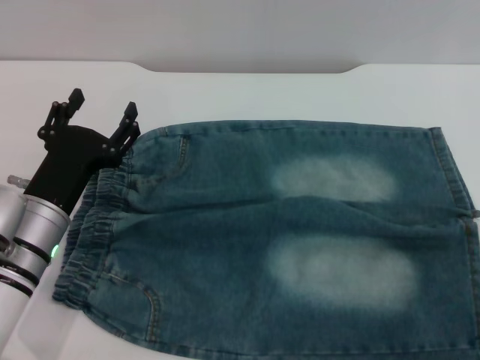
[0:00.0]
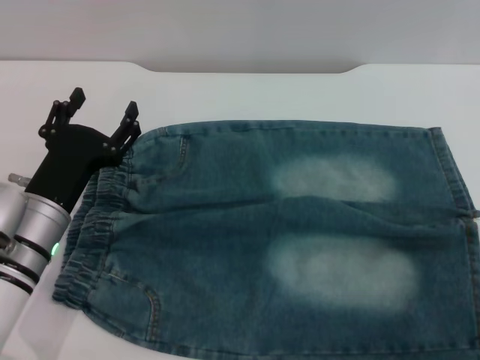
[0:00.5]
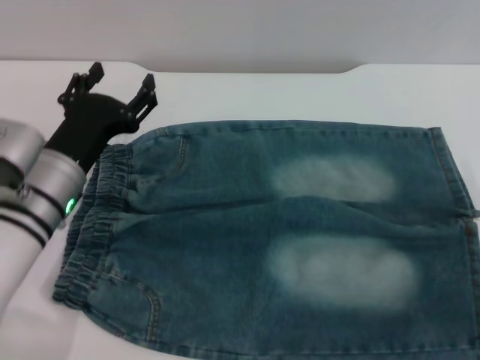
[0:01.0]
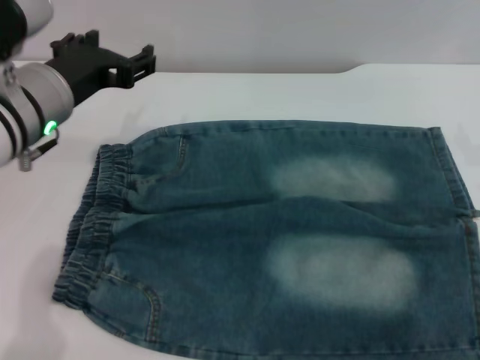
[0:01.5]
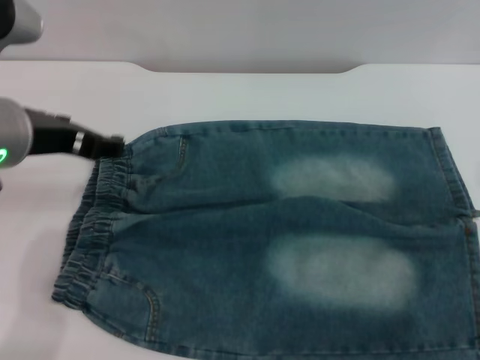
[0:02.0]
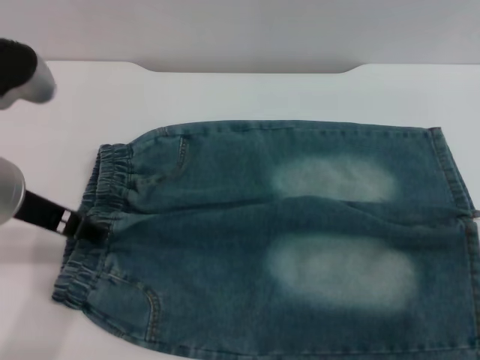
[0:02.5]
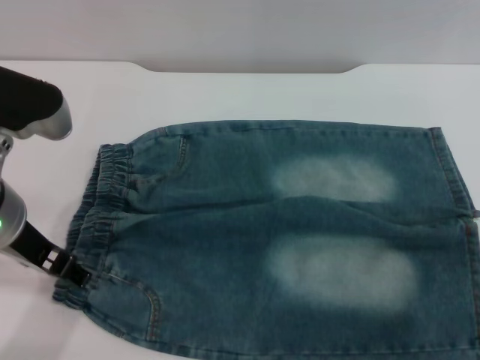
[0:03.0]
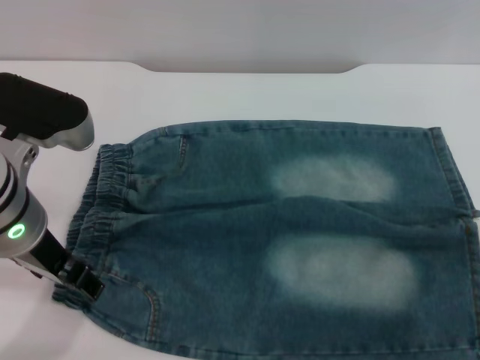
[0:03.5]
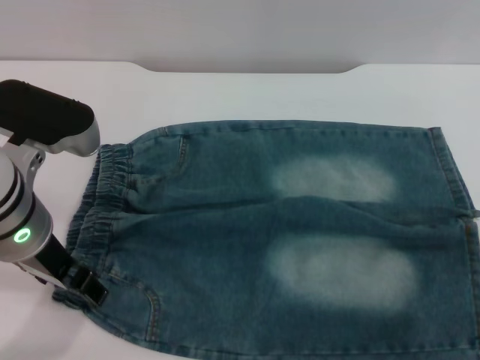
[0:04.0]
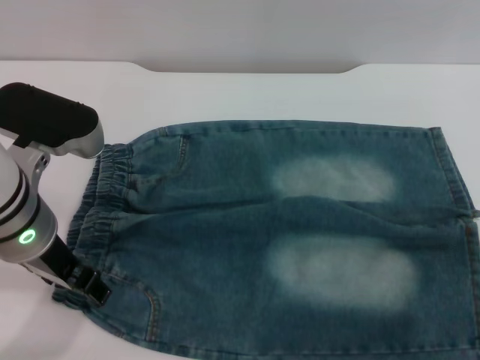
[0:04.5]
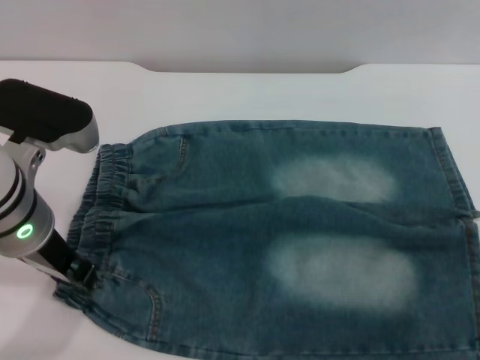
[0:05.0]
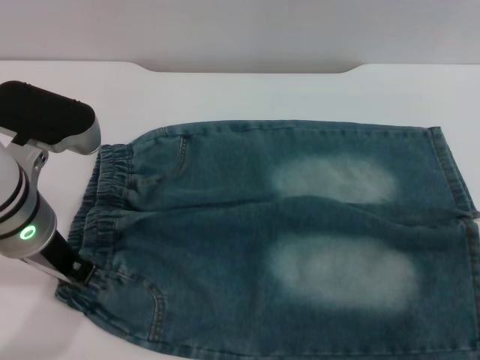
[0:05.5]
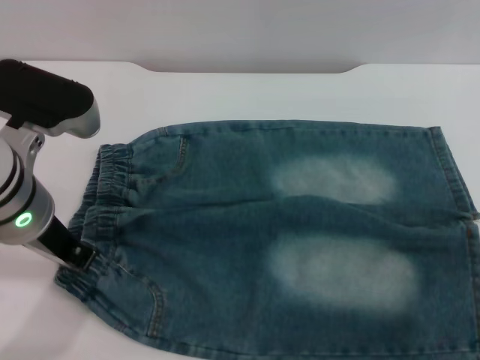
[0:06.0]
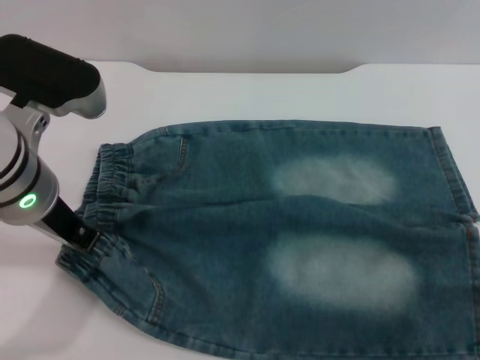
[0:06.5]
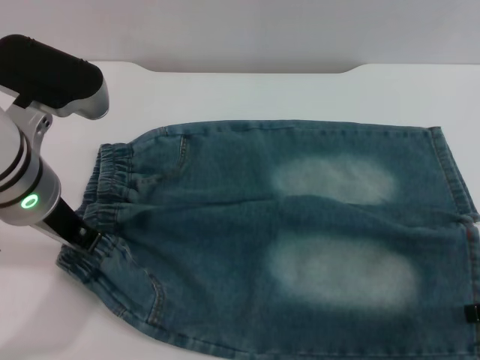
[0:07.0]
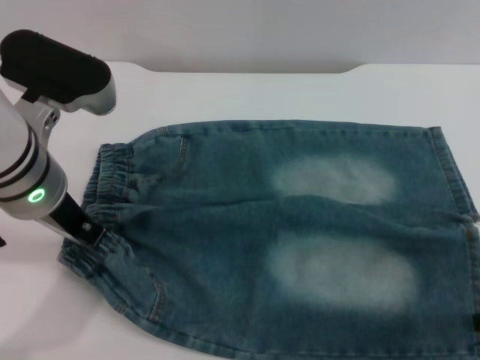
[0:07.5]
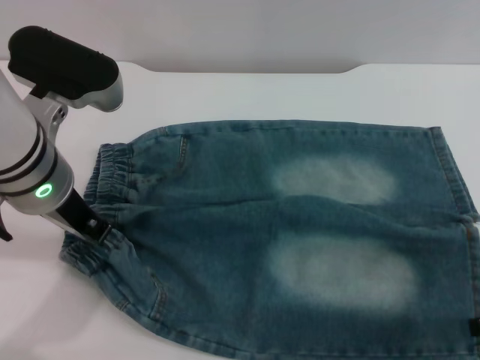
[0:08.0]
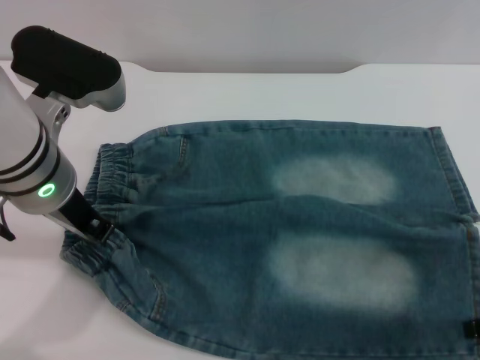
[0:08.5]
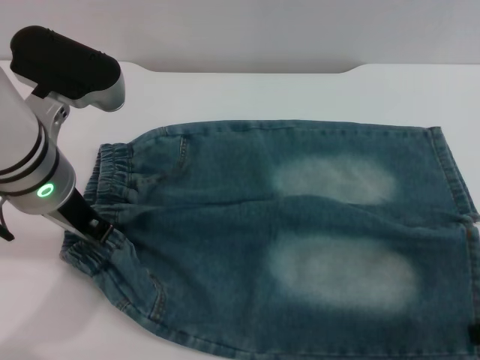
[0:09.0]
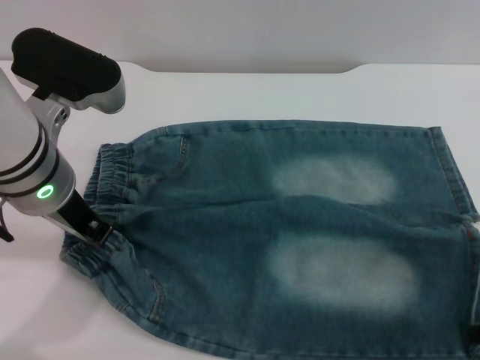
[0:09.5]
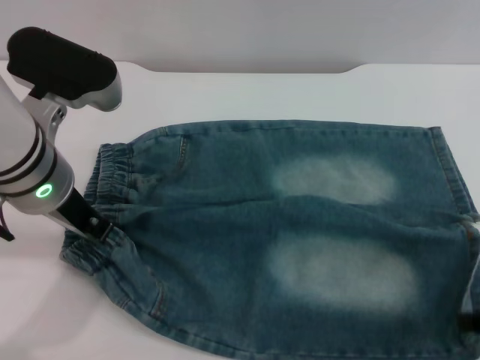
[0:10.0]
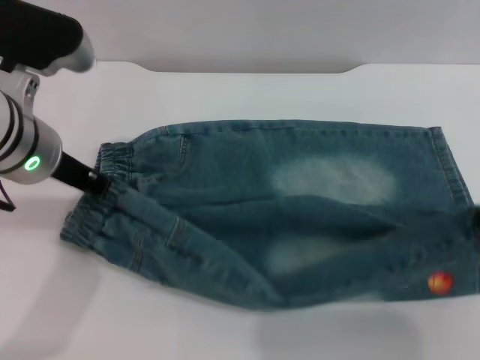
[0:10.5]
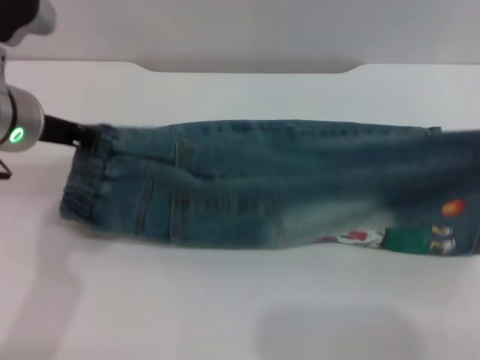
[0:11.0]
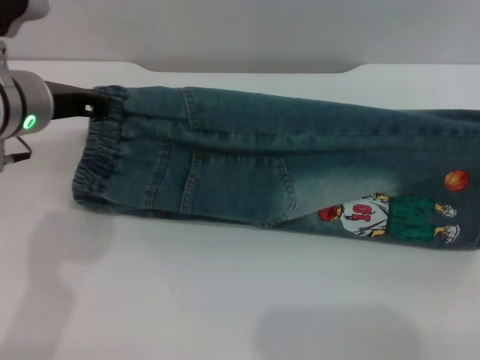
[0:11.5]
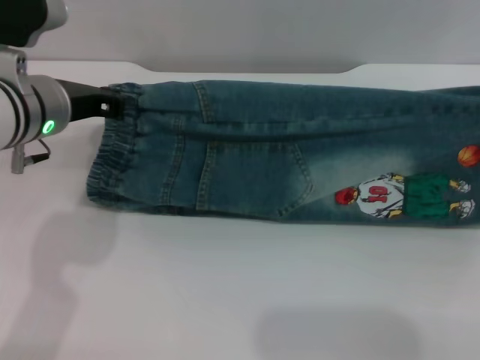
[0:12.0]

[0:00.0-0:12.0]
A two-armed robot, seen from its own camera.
0:00.0 to 0:02.0: The left gripper heads upward, covering approximately 15 cm.
0:04.0 to 0:06.0: The left gripper closes up.
0:08.0 to 0:10.0: The right gripper closes up.
0:10.0 to 0:12.0: The left gripper changes place by some 5 cm. The right gripper heads forward, covering some 10 cm.

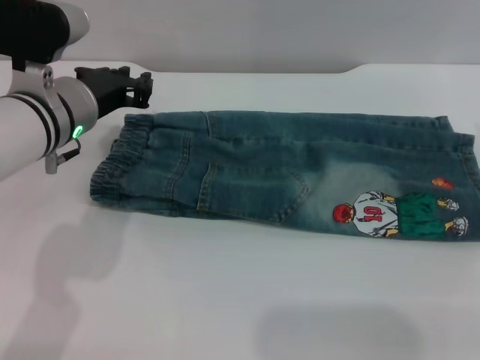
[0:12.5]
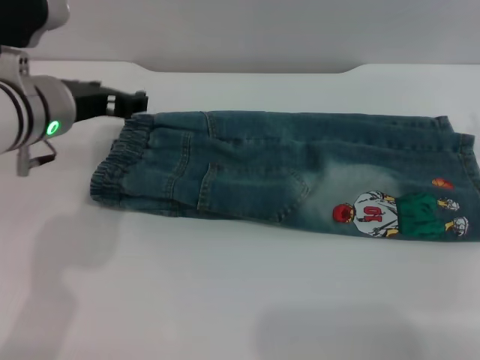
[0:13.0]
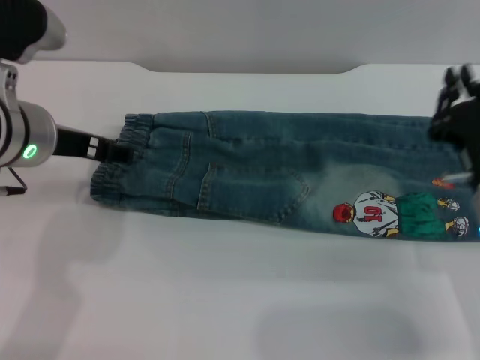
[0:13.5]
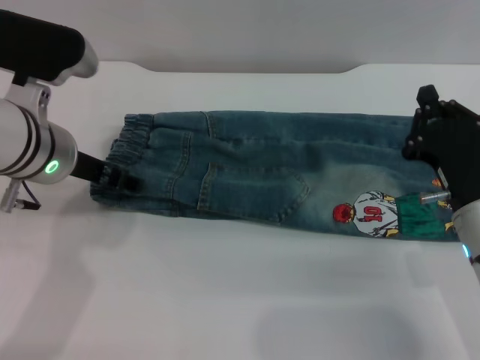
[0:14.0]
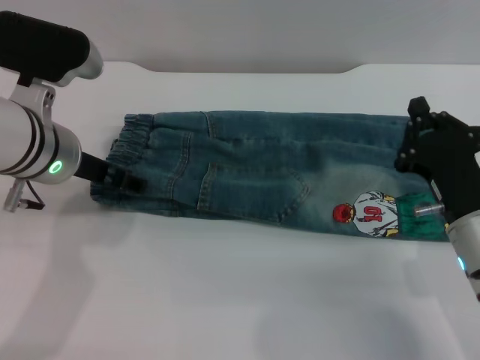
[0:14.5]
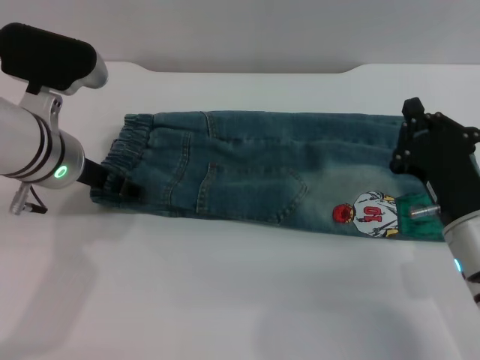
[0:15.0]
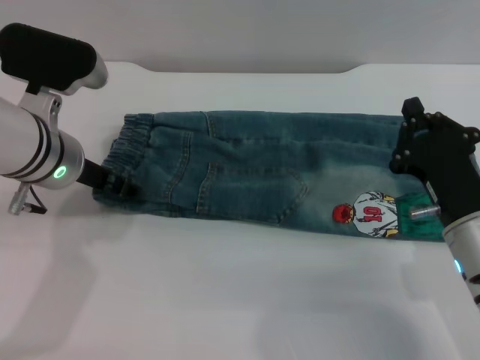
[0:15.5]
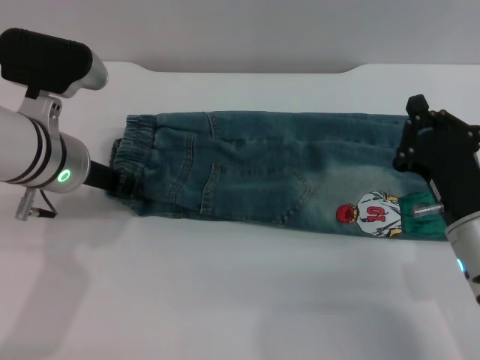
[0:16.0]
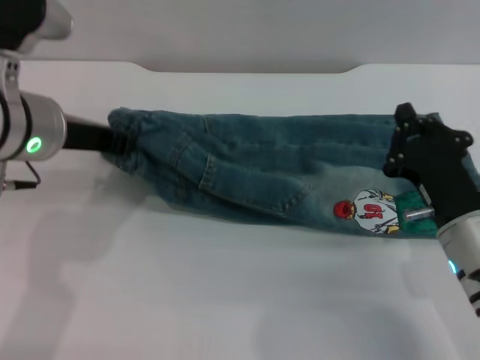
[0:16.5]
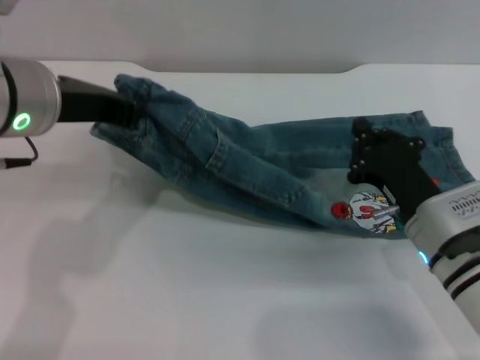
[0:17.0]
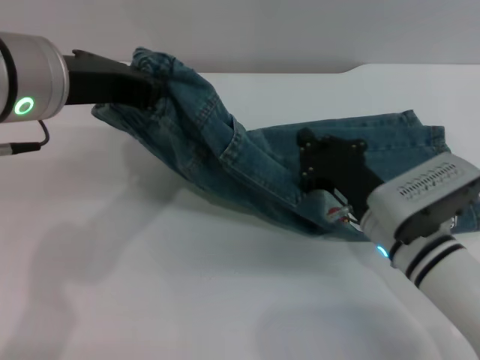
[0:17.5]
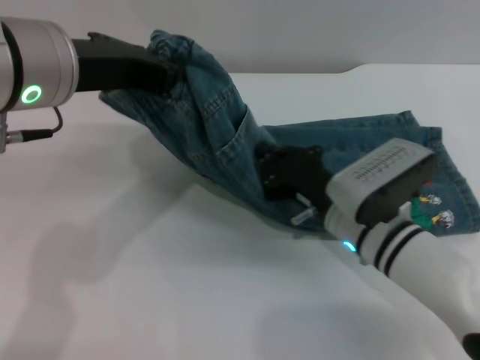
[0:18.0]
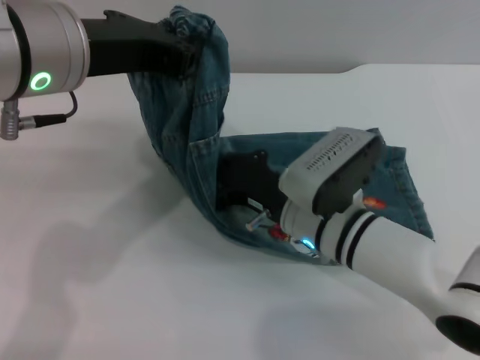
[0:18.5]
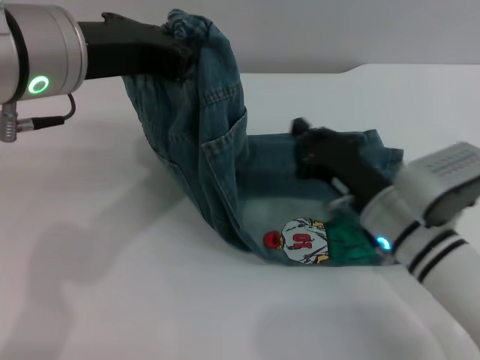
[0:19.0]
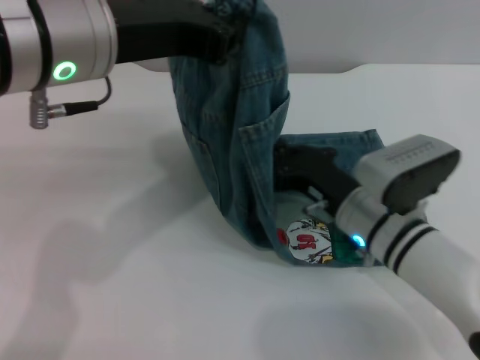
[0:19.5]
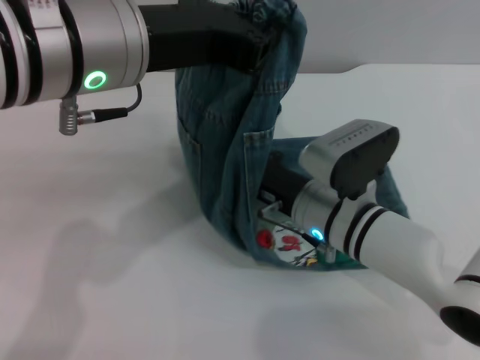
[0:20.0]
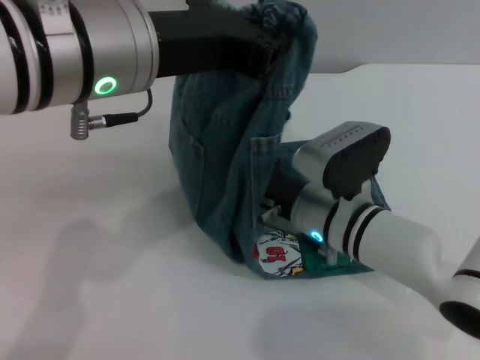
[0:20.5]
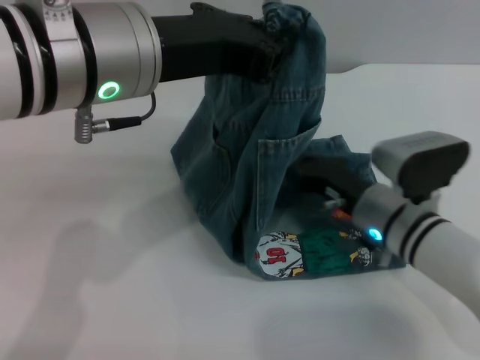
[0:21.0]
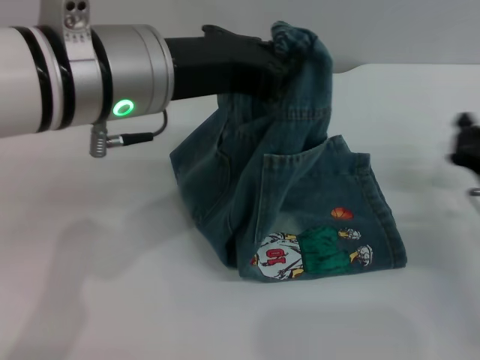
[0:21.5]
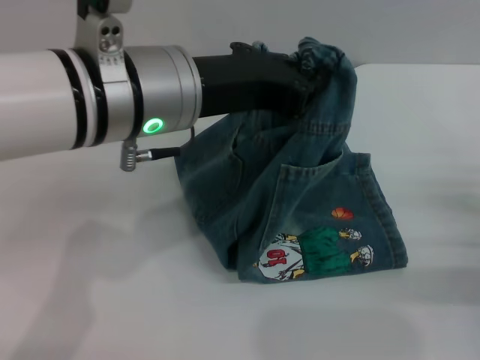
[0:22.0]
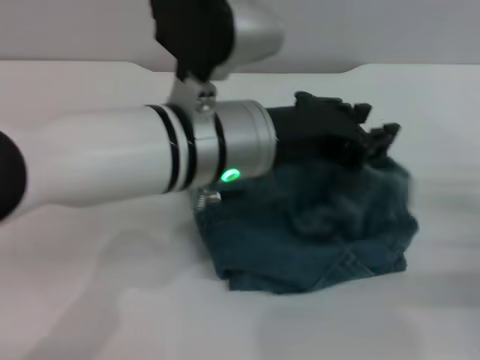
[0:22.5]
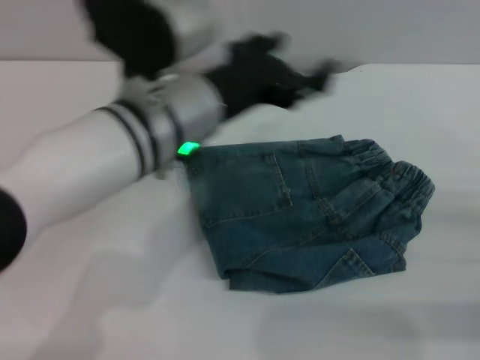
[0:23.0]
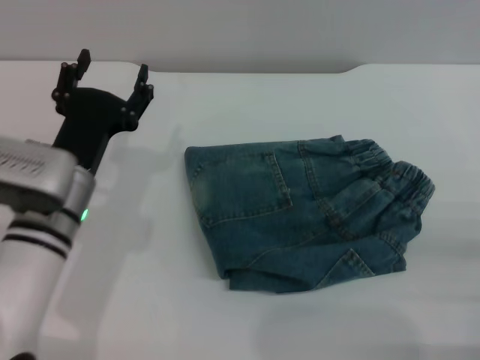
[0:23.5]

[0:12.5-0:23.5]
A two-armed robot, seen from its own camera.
Step, 0:12.5 to 0:14.5: Fold the bottom of the pants upward with both grippers.
Step, 0:15.0 to 0:23.0: Fold the pants from left to right with the left gripper.
0:12.5 to 0:14.5: The right gripper travels to the left, downward and backward by approximately 15 cm, and opens, then closes again. The left gripper opens.
0:14.5 to 0:16.0: The left gripper closes.
0:16.0 to 0:18.0: The right gripper goes approximately 10 cm to the left and forward. Meanwhile the left gripper is displaced upward by roughly 15 cm, and closes up.
0:18.0 to 0:20.0: The right gripper moves left and right over roughly 5 cm, changing direction 2 times.
0:20.0 to 0:21.5: The right gripper goes about 20 cm to the right.
0:21.5 to 0:23.5: The right gripper goes about 15 cm backward and to the right, while the left gripper moves downward, about 20 cm, and opens.

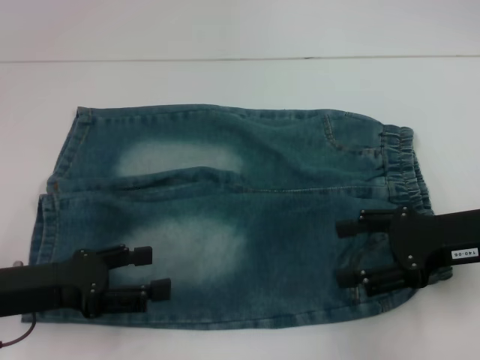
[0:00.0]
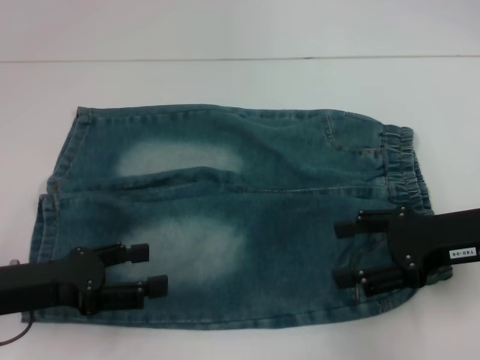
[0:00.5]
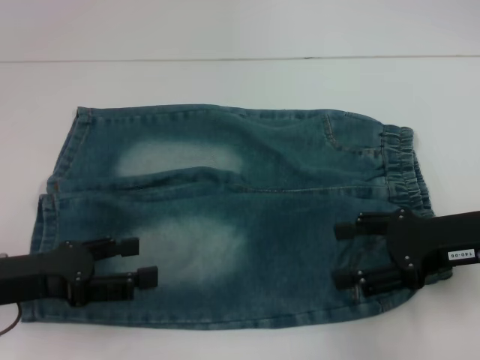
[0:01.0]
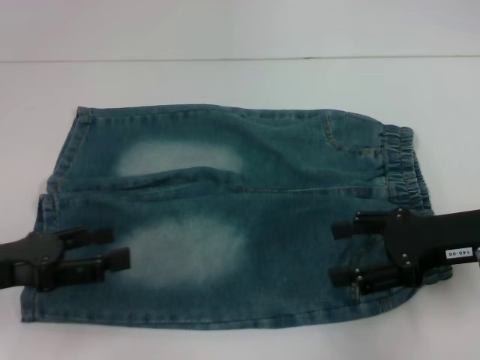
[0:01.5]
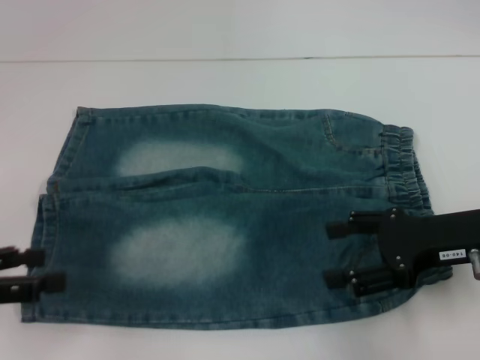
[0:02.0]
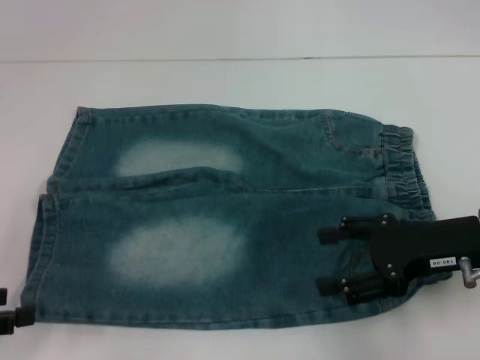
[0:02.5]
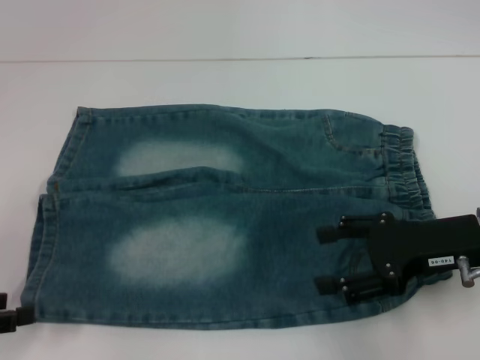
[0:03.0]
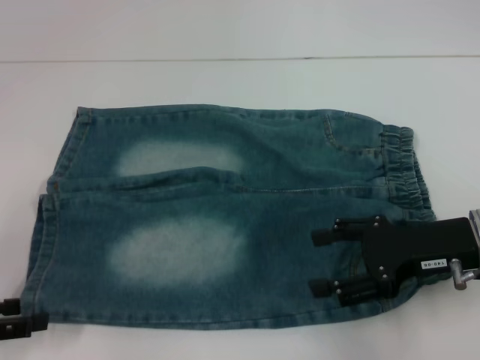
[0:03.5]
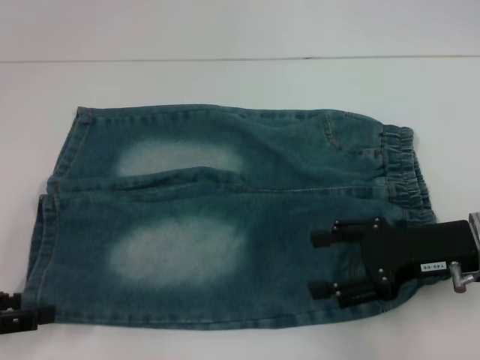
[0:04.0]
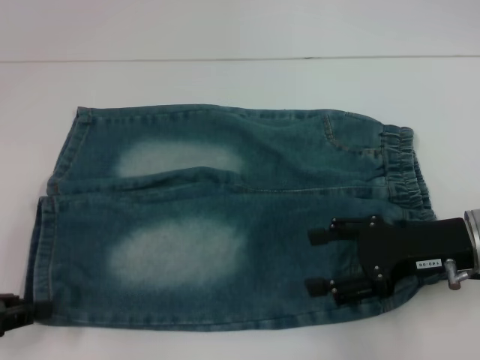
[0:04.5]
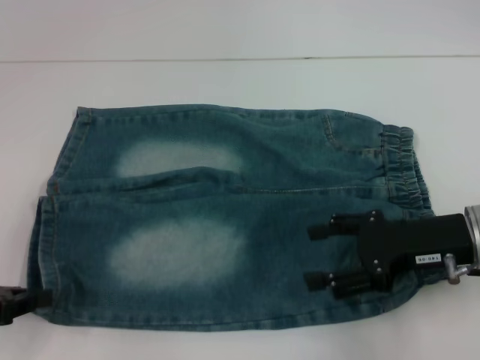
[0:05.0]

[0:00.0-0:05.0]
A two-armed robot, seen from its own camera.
Step, 0:00.0 to 0:05.0: Grab the lower left pant leg with your left hand.
0:00.0 to 0:02.5: The left gripper heads to the left, covering roughly 10 cm.
0:02.5 to 0:05.0: The left gripper closes its fingers.
